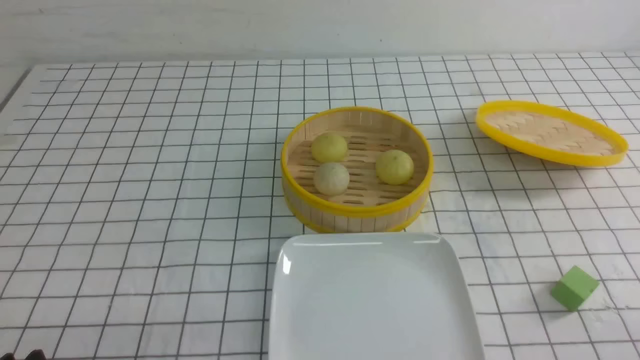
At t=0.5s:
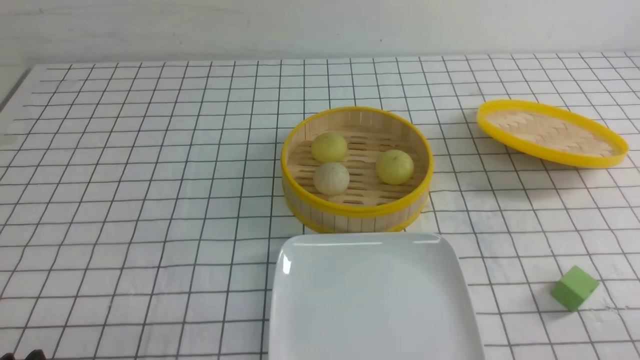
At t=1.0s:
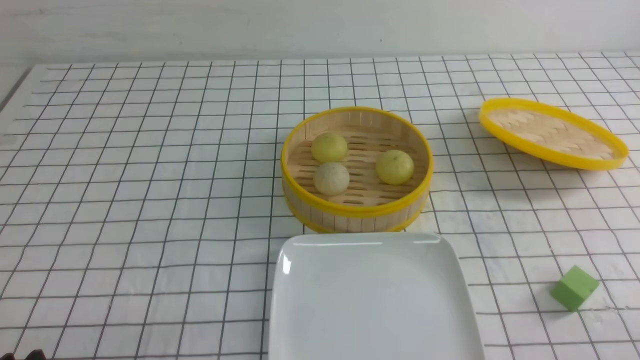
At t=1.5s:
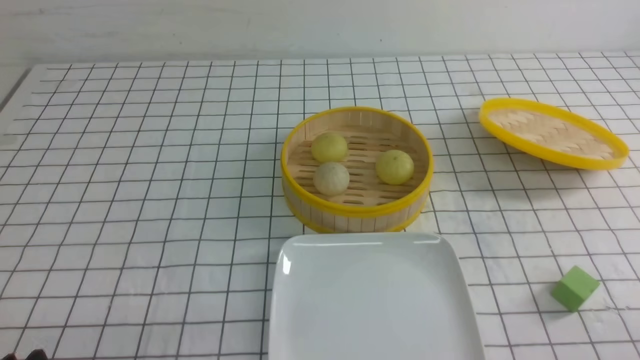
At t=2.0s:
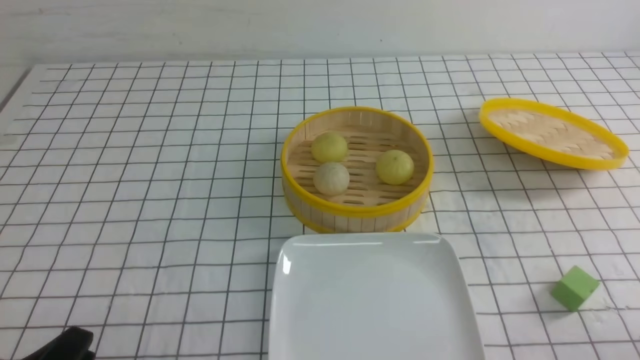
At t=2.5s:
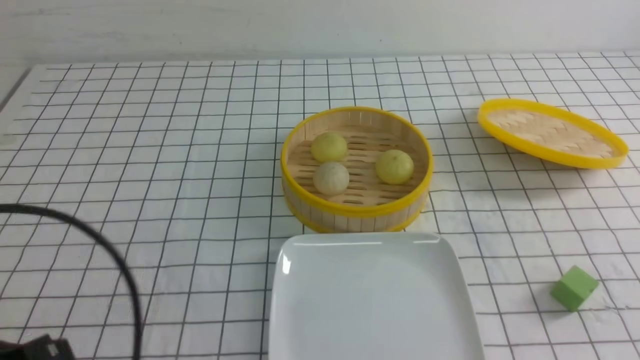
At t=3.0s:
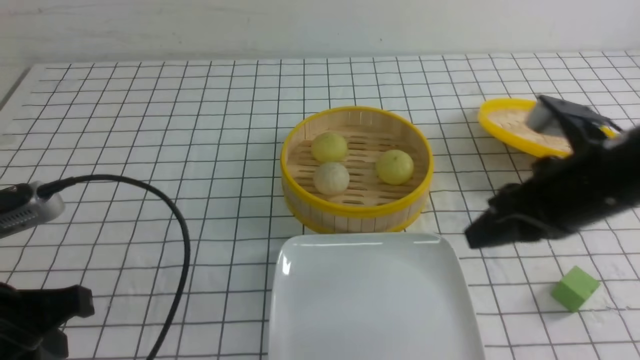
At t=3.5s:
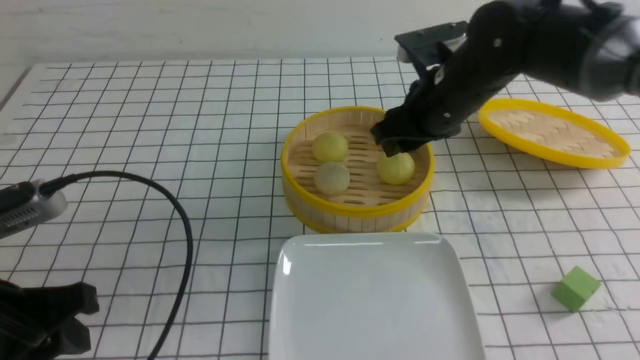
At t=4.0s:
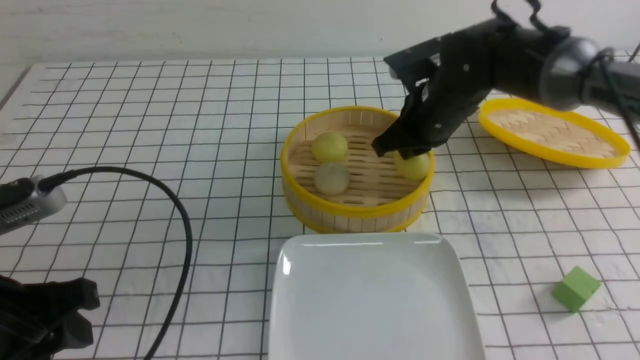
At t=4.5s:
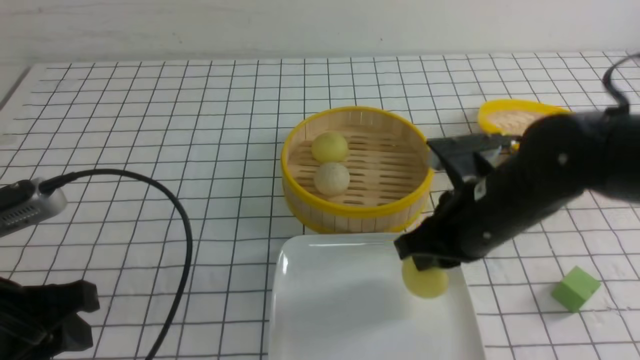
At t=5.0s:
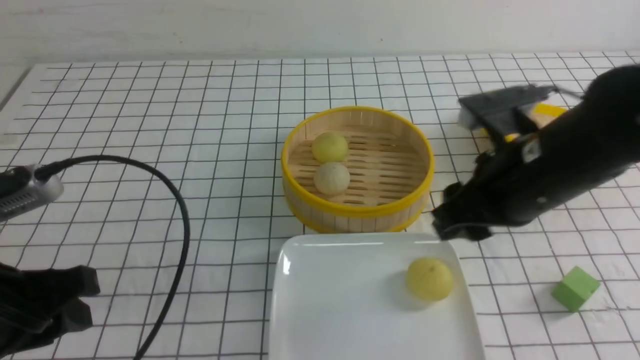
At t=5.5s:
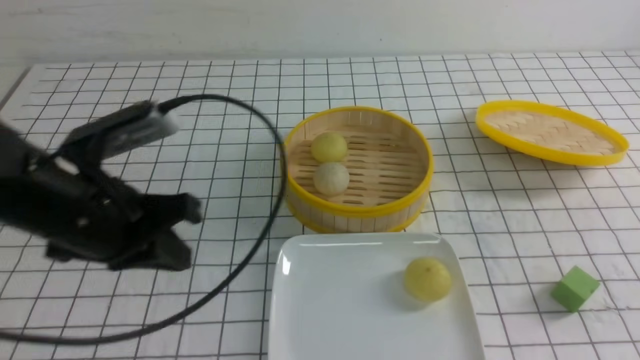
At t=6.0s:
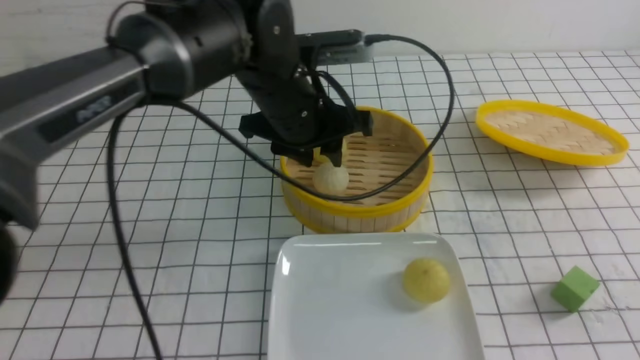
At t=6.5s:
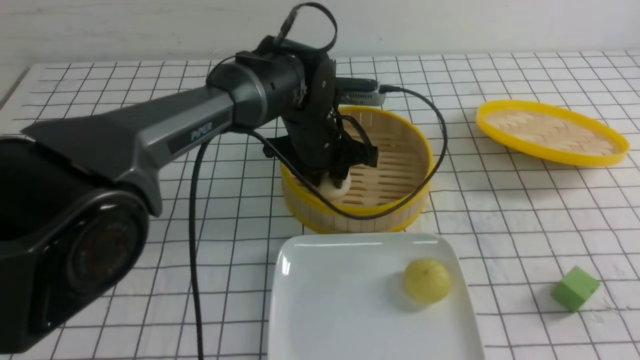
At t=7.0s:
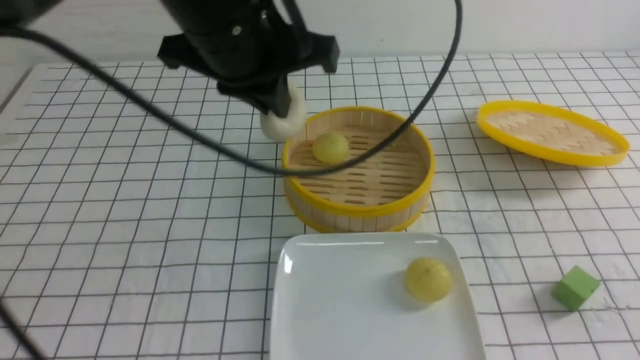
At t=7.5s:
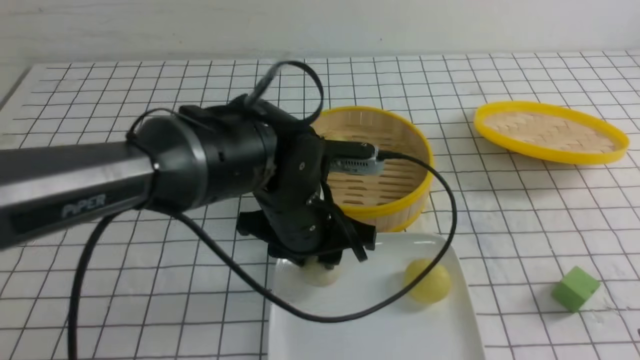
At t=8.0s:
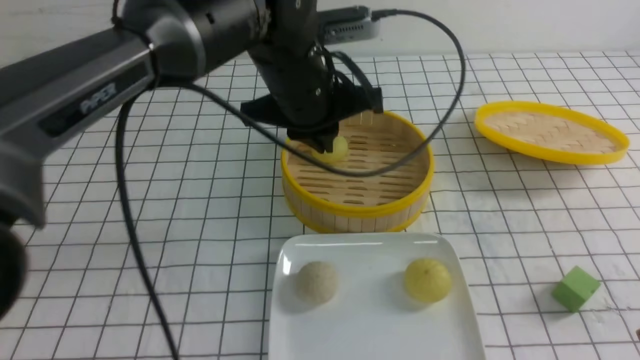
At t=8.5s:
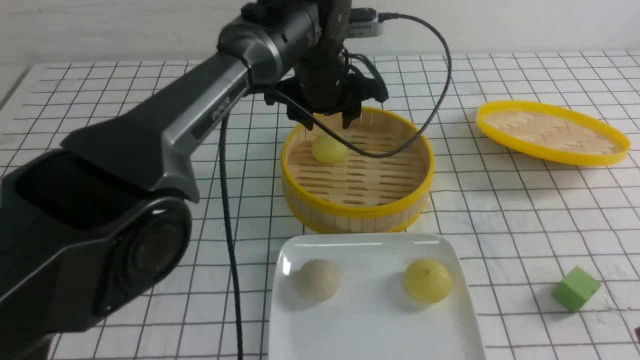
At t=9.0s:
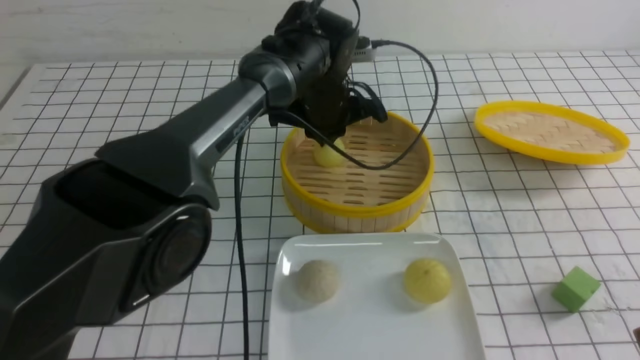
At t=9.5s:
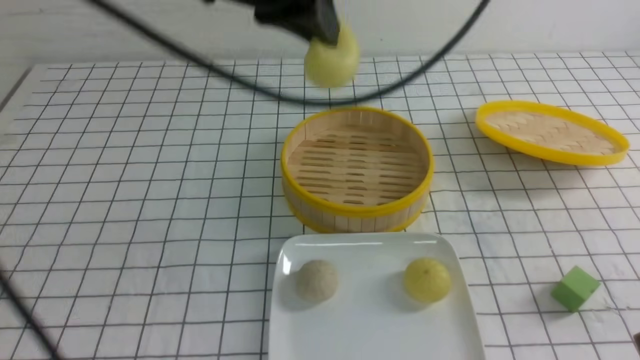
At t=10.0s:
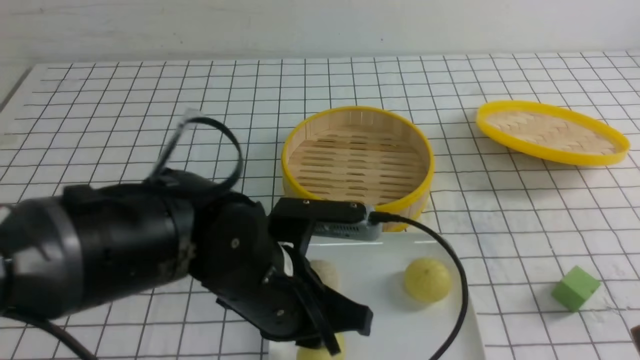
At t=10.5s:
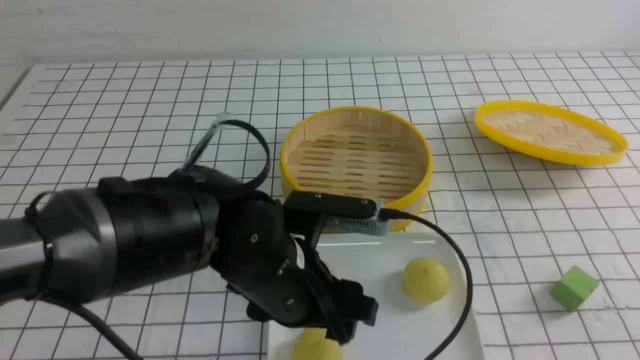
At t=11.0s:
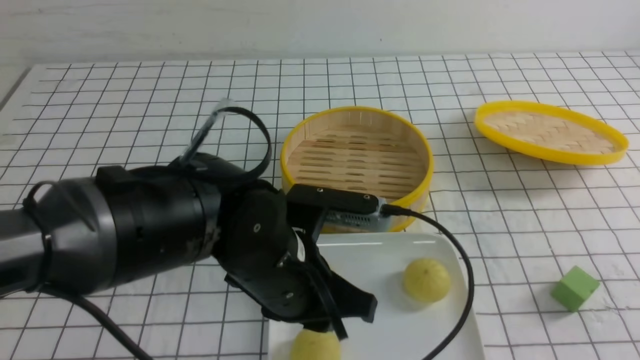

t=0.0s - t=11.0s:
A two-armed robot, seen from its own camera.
Step, t=0.0s - t=3.5s: use the right arm to grab the steamed stuffed bun that is closest to it.
Step, t=5.0s - t=6.5s: use the left arm to grab the steamed stuffed bun that is closest to it.
Step, t=7.0s - t=7.5s: use the left arm to put the steamed stuffed bun into the plate.
Step, t=8.0s - t=9.0s: use the left arm to grab the steamed stuffed bun that is closest to it.
Step, t=9.5s - t=10.5s: use the left arm to put the steamed stuffed bun into the plate.
t=2.0s - t=3.5s: The left gripper moves forward and upward, roughly 10 cm, and closes, then reopens. Meanwhile the right gripper shifts about 40 cm forward and to the left, and closes, then opens again.
t=3.5s - t=5.5s: The right gripper goes about 30 cm backward and to the right, and closes. The left gripper is displaced forward and to the right by about 10 cm, and closes.
t=5.5s - t=7.5s: The left gripper goes roughly 15 cm to the right, and opens its fingers.
t=7.5s - t=9.0s: The left gripper goes about 15 cm forward, and closes.
t=9.0s - t=11.0s: The left gripper travels backward by roughly 25 cm, and opens, then closes once more. Meanwhile the right gripper goes approximately 5 cm backward.

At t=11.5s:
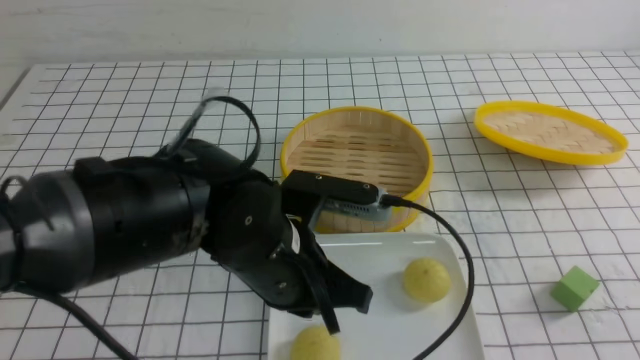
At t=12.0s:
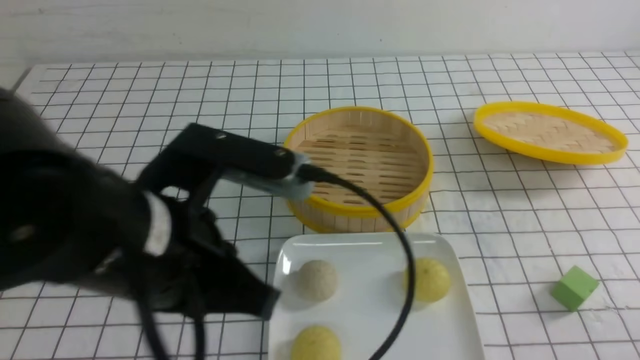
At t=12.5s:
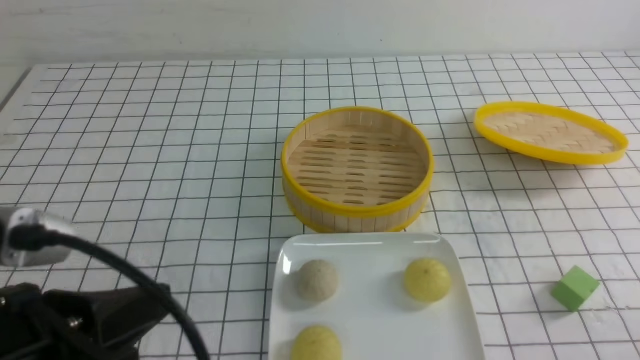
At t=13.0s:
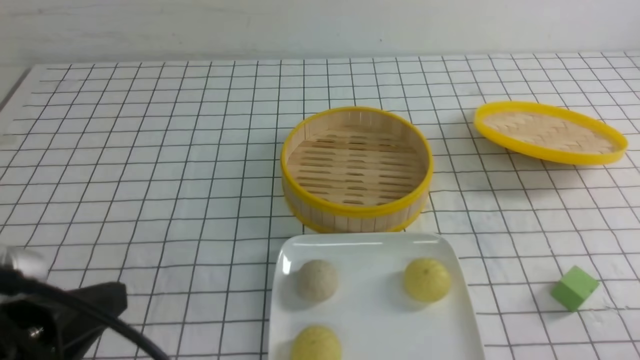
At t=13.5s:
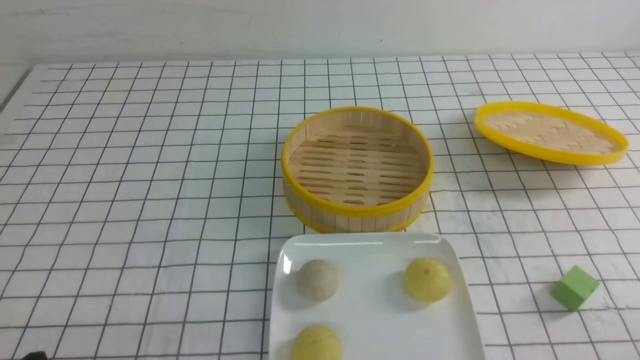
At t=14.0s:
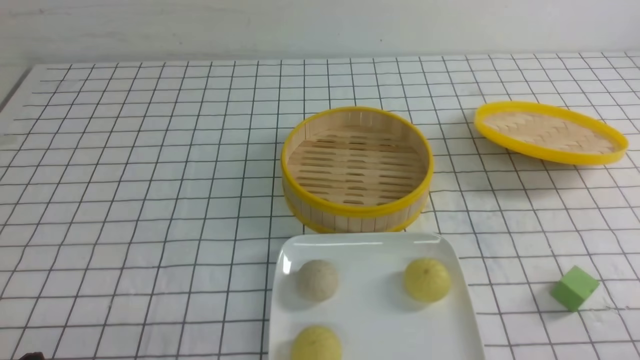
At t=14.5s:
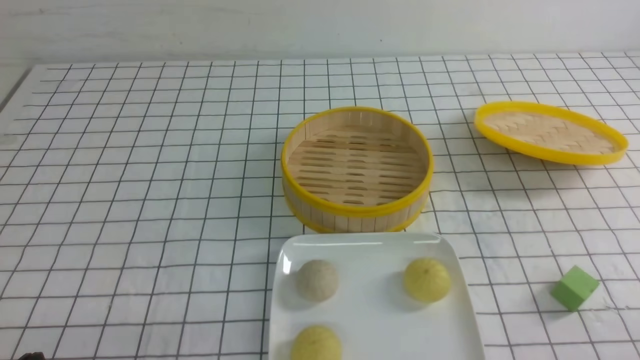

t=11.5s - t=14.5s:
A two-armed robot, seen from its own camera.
t=11.5s - t=13.0s: The left gripper heads to the left and backward, covering some 20 cm. The right gripper goes some 5 cm downward.
t=13.0s - t=14.5s: The left gripper moves downward, some 10 cm.

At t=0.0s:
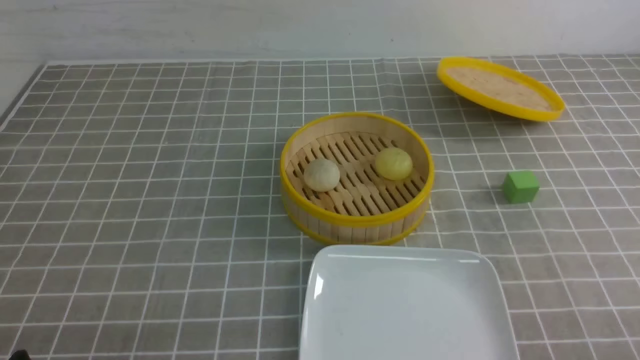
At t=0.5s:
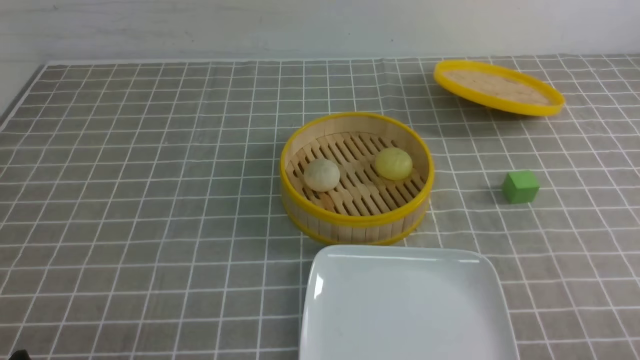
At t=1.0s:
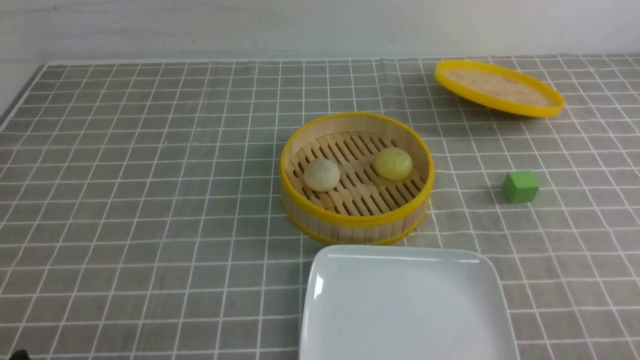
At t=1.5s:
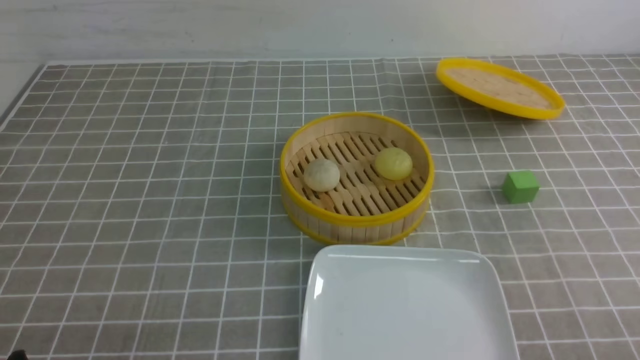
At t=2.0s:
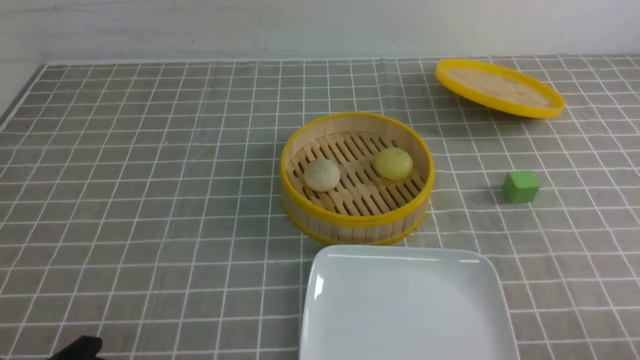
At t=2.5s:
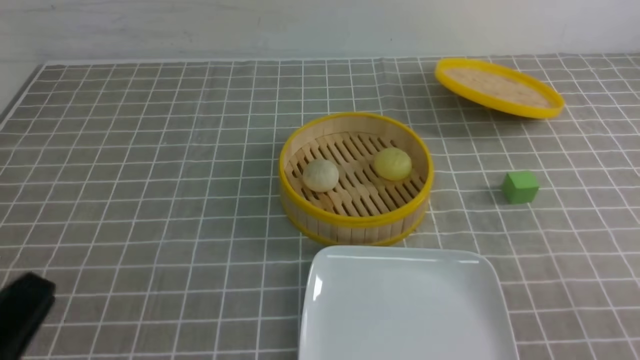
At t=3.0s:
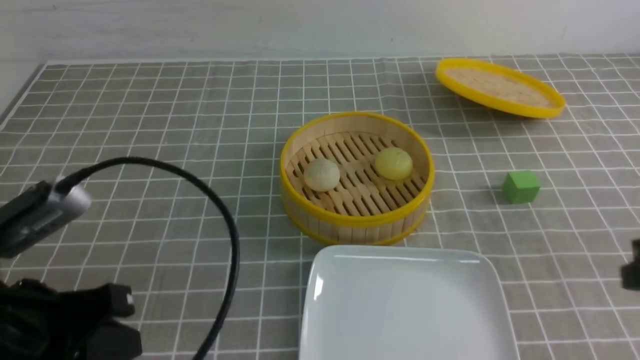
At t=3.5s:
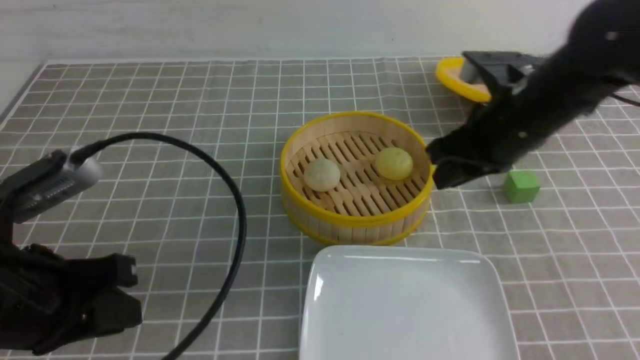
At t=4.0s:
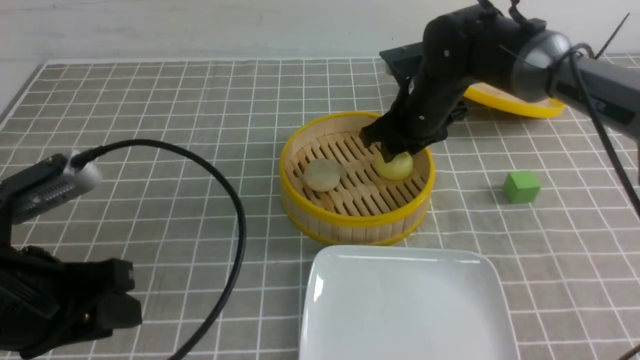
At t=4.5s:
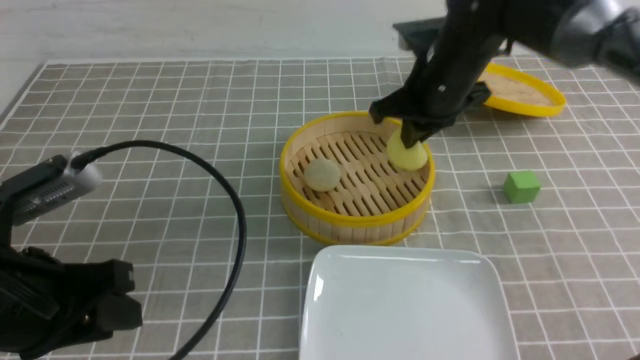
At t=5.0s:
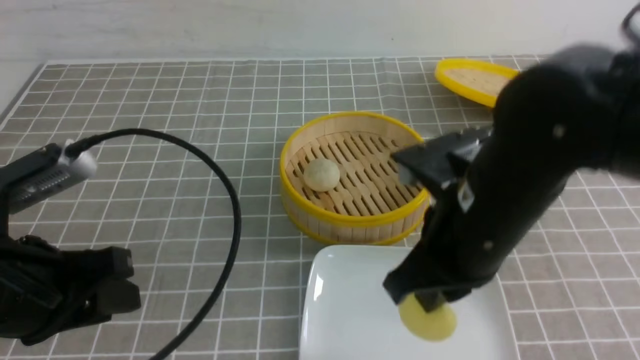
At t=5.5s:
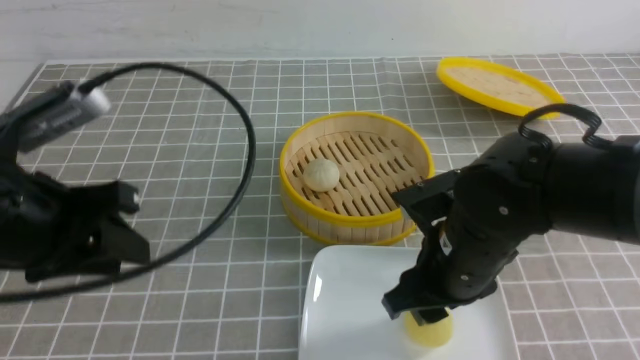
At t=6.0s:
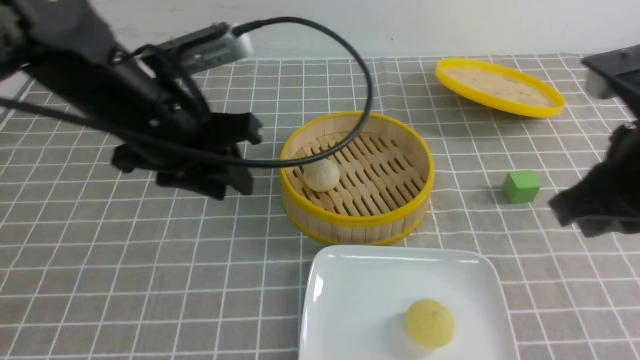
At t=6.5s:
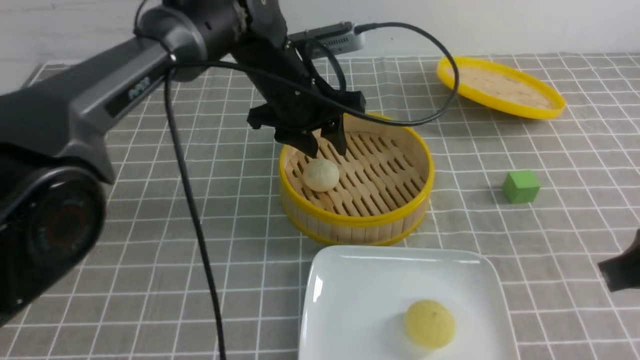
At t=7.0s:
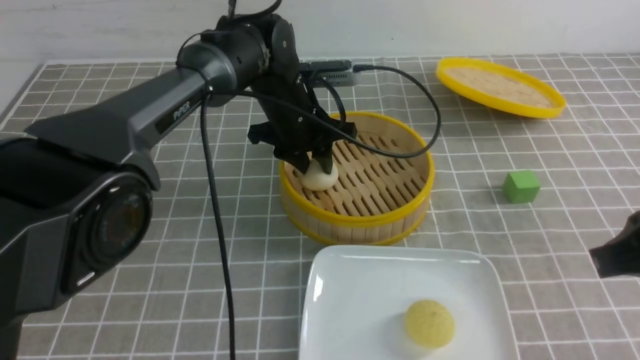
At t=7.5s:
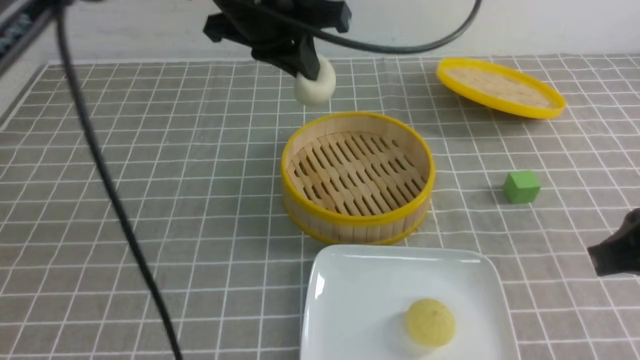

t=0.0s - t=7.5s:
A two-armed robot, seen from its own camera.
Step, t=0.0s - t=4.0s: use the right arm to grab the steamed stuffed bun that is closest to it.
Step, t=4.5s - t=5.0s: use the right arm to put the steamed stuffed bun into the plate.
Step, t=5.5s - t=7.0s: use the left arm to grab the steamed stuffed bun that is closest to it.
t=2.0s - t=4.0s: The left gripper heads forward and upward, covering roughly 15 cm, and closes and opens again. The right gripper shifts roughly 40 cm forward and to the left, and closes and opens again.
t=4.0s - t=5.5s: The right gripper moves backward, about 20 cm, and closes and opens again; the left gripper moves some 5 cm.
t=5.5s - t=7.5s: The left gripper moves to the right and forward, about 25 cm, and closes. Meanwhile the right gripper heads to the right, upward and backward, covering some 20 cm, and closes its fingers.
